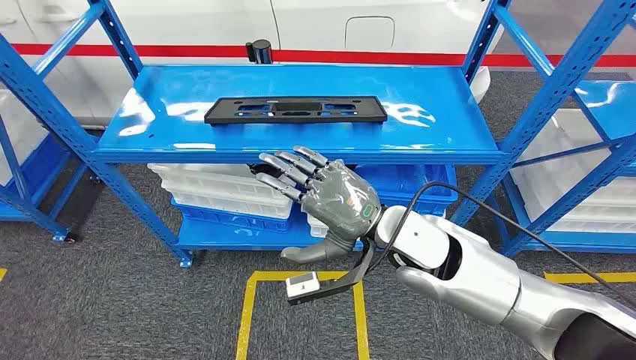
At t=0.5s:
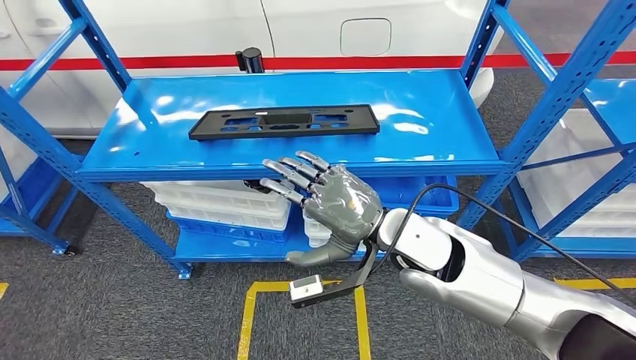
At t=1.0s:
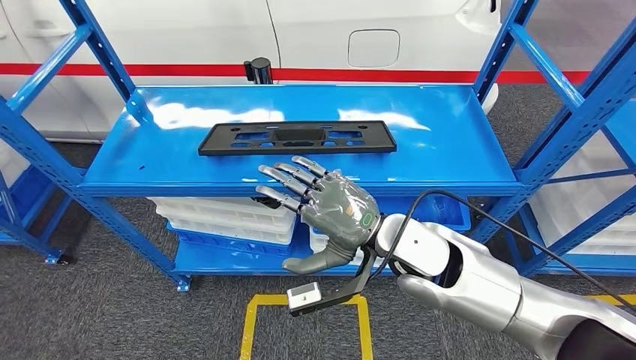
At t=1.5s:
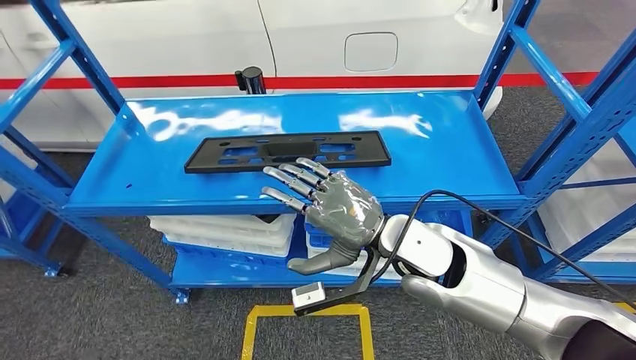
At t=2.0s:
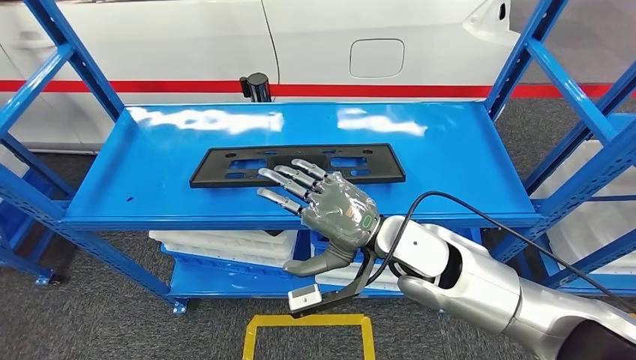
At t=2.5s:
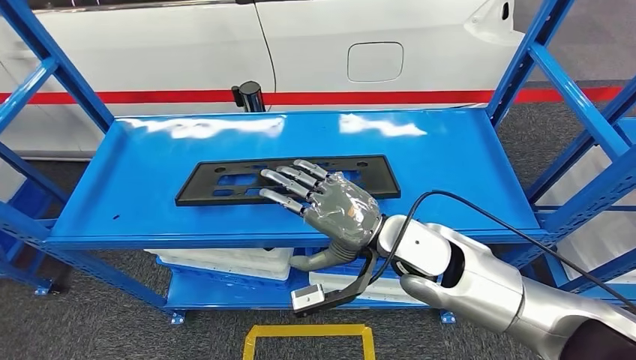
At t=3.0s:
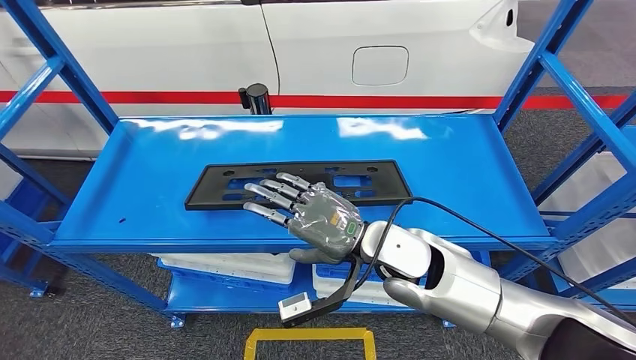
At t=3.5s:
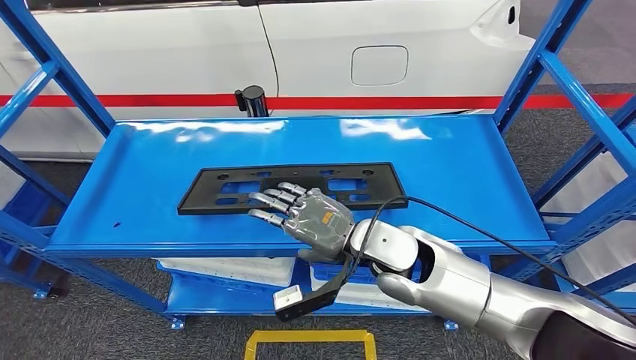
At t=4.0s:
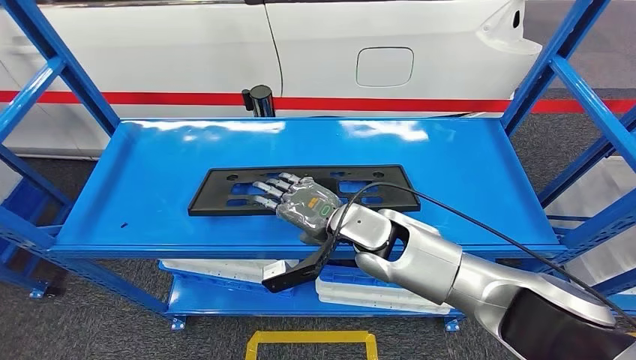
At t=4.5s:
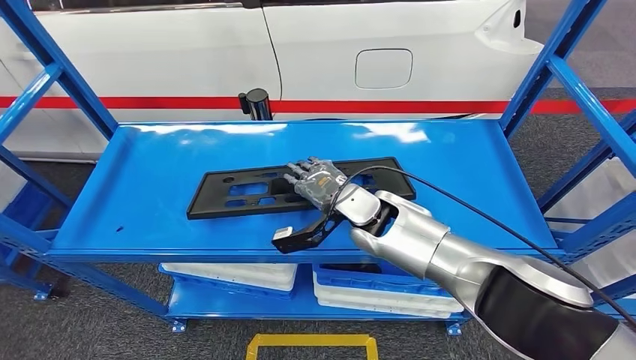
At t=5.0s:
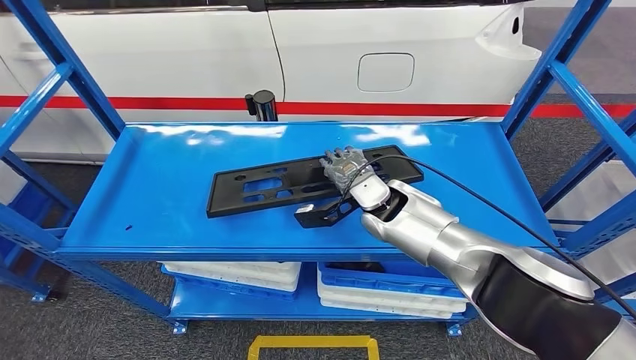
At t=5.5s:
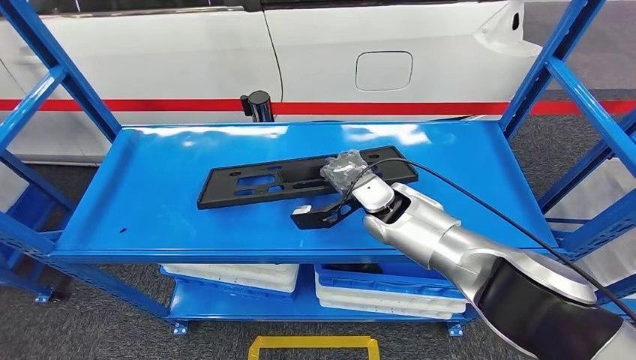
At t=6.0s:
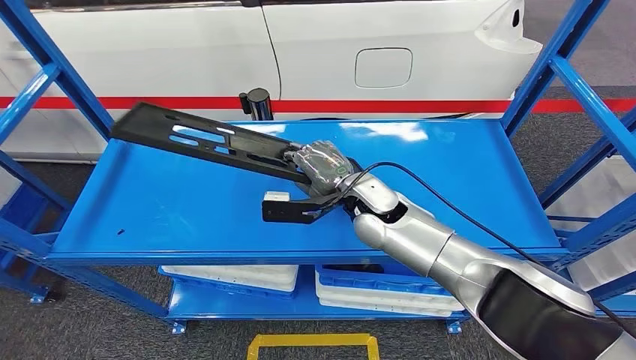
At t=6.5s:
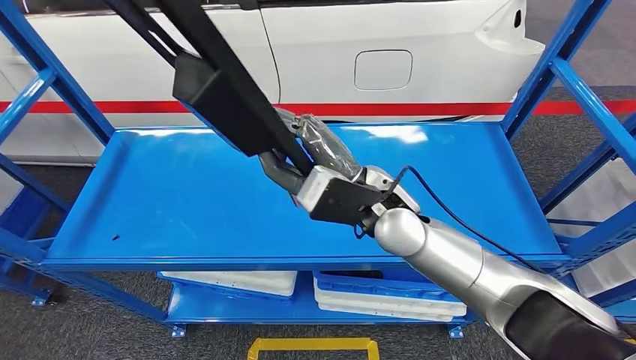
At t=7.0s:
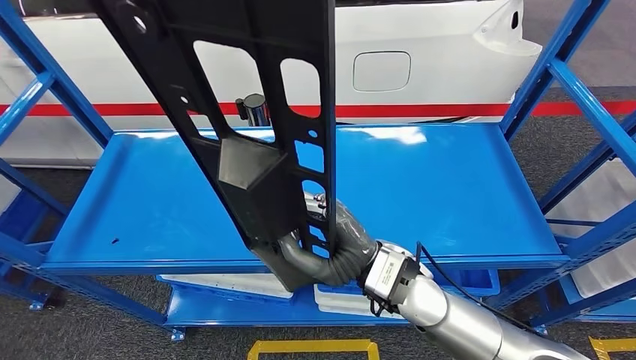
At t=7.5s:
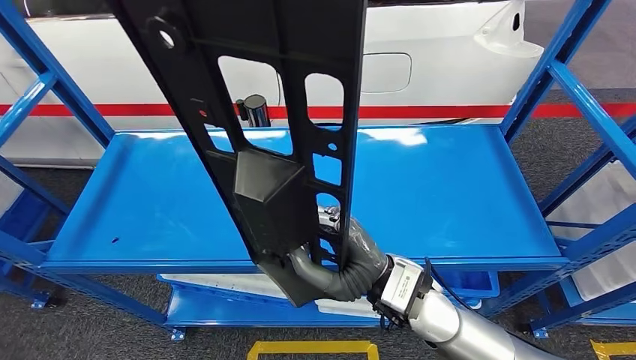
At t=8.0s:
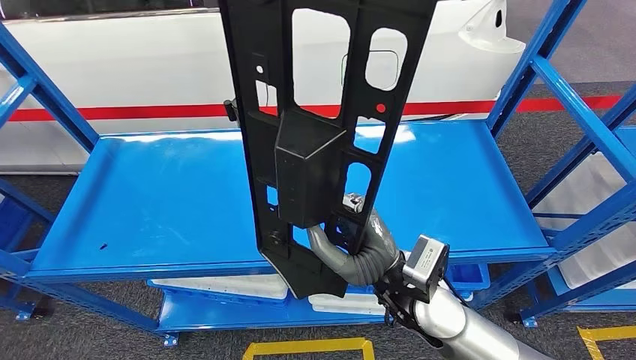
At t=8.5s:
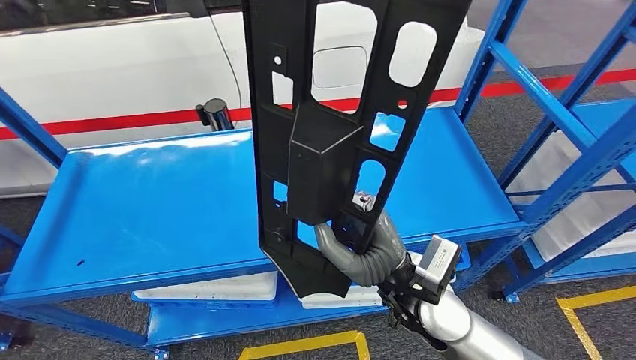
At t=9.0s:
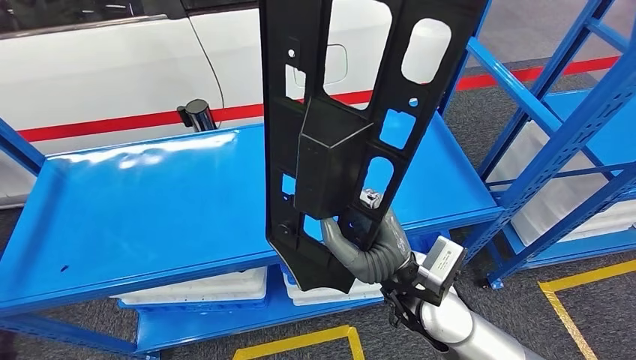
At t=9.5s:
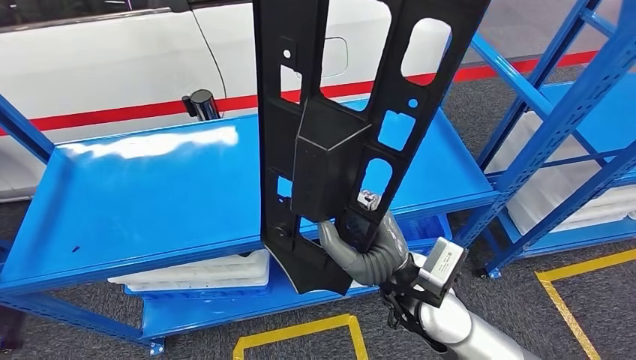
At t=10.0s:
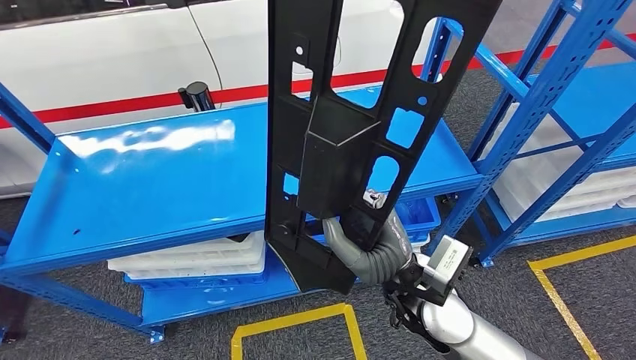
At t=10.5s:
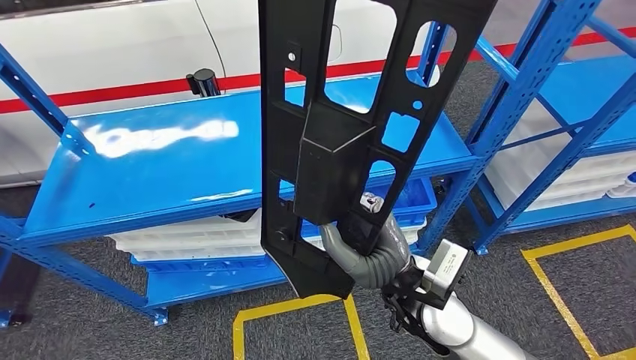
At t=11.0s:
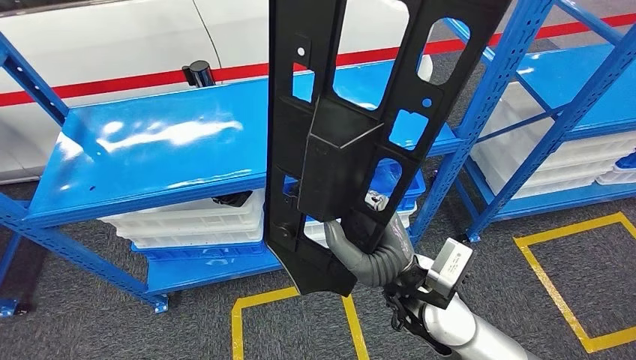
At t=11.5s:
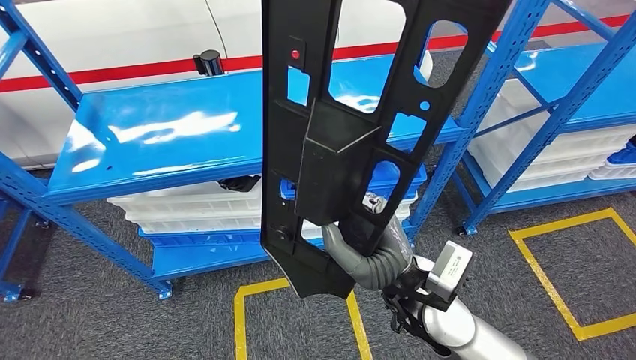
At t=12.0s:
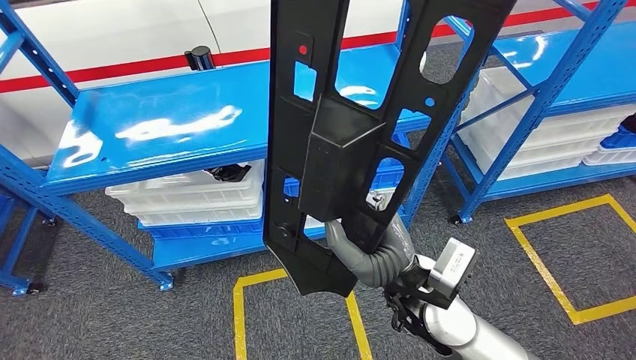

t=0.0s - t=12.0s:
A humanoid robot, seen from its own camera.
Step, t=0.0s - t=10.0s: Pick up the large material from the shelf.

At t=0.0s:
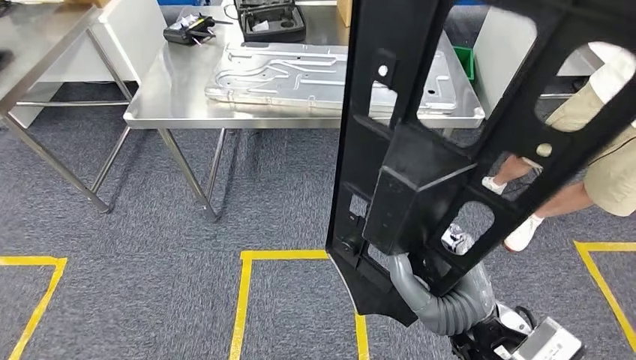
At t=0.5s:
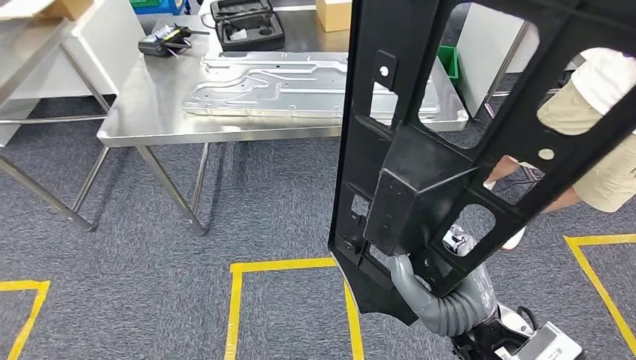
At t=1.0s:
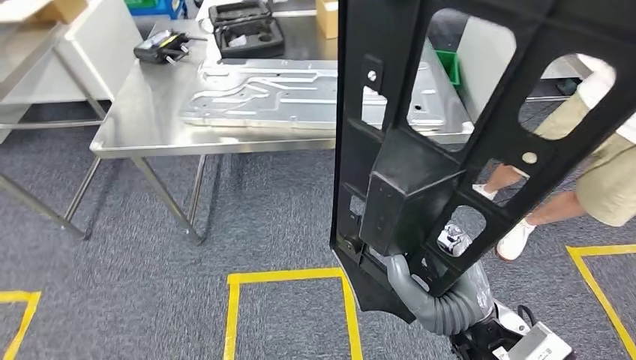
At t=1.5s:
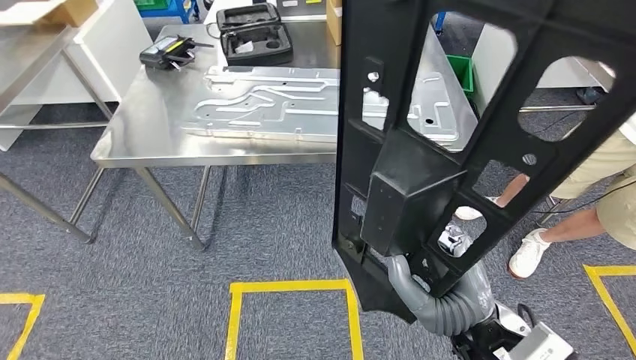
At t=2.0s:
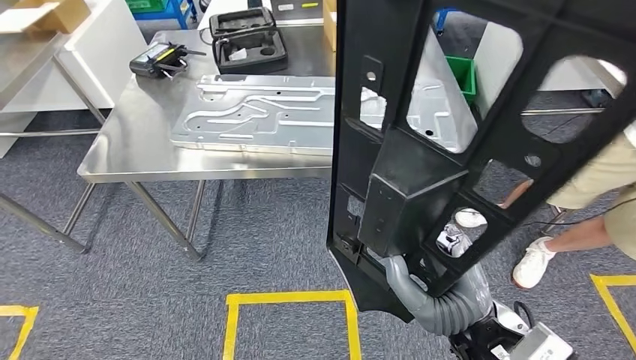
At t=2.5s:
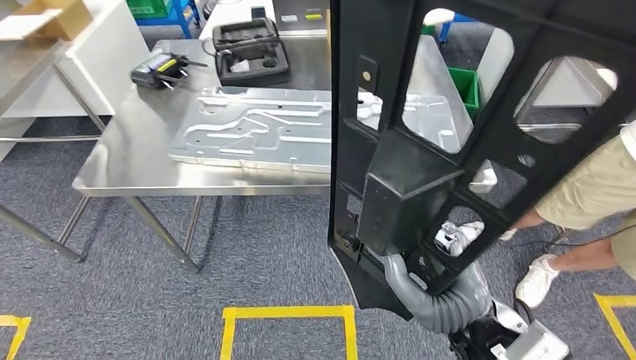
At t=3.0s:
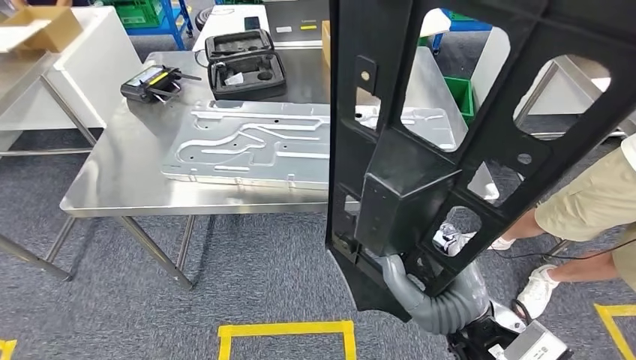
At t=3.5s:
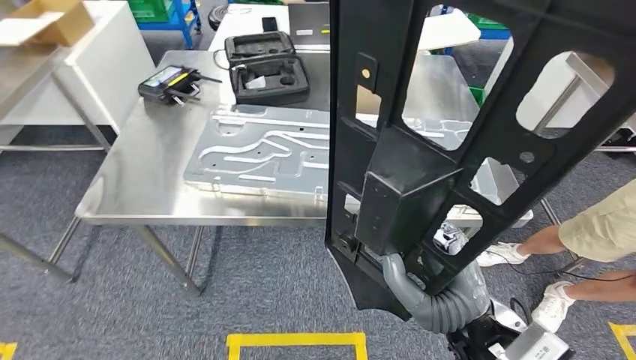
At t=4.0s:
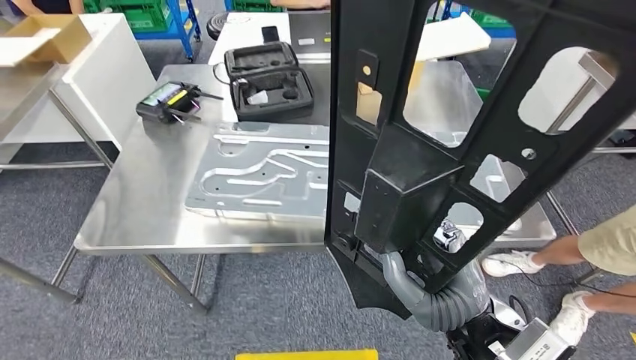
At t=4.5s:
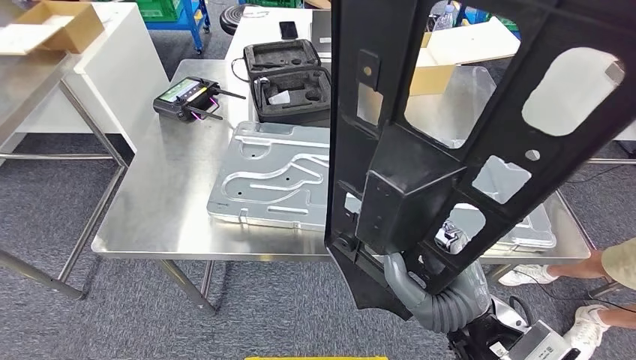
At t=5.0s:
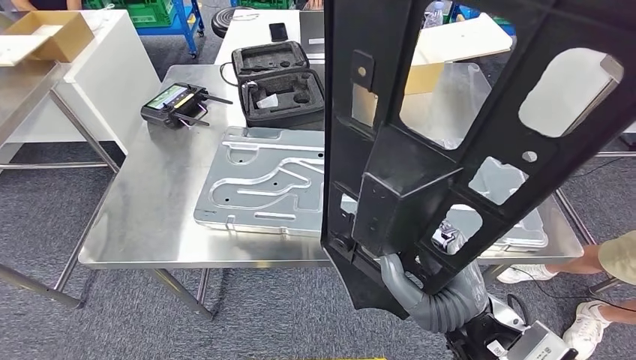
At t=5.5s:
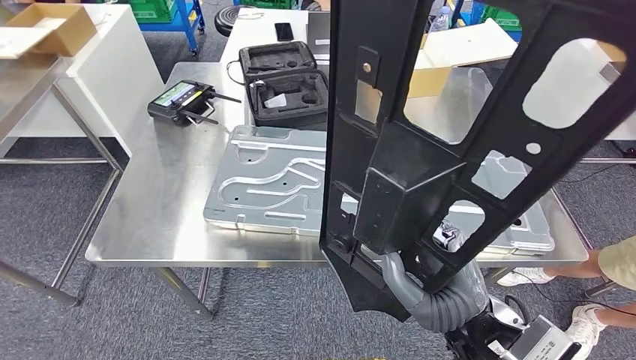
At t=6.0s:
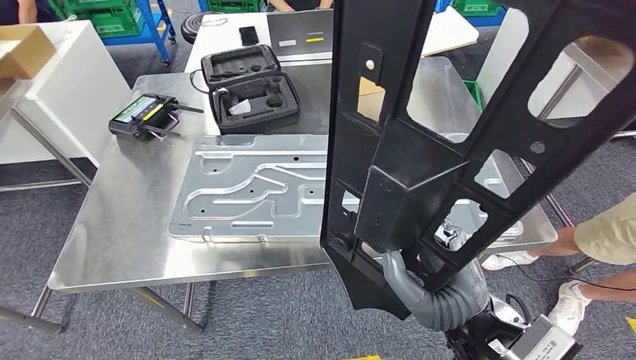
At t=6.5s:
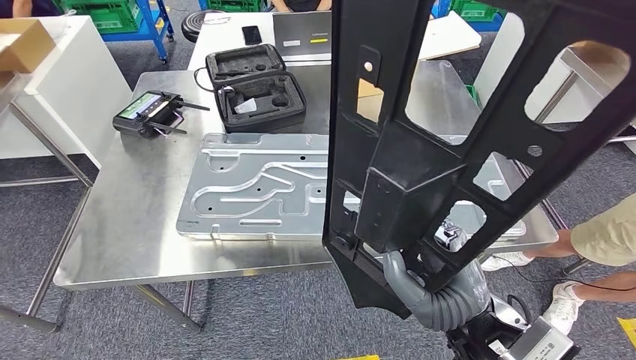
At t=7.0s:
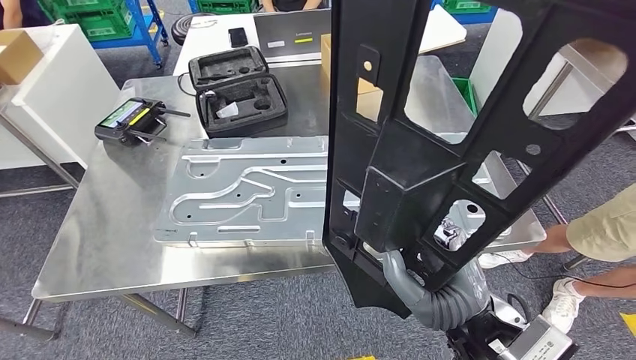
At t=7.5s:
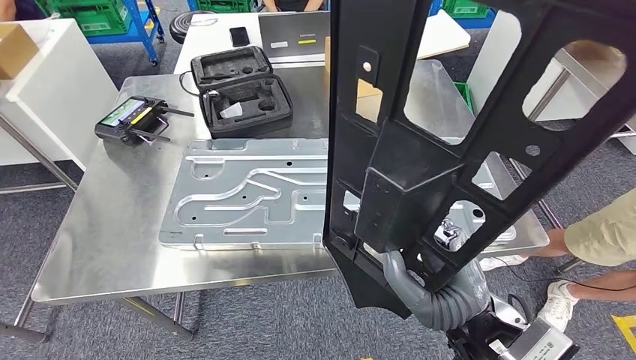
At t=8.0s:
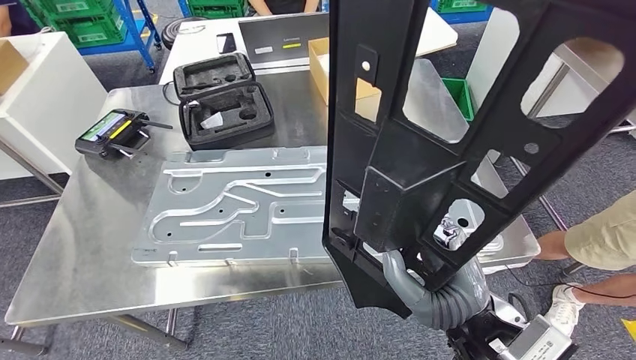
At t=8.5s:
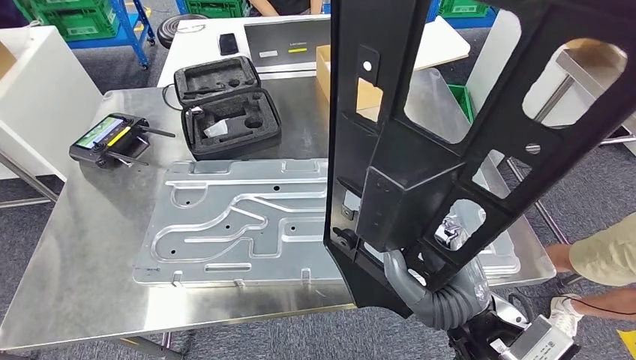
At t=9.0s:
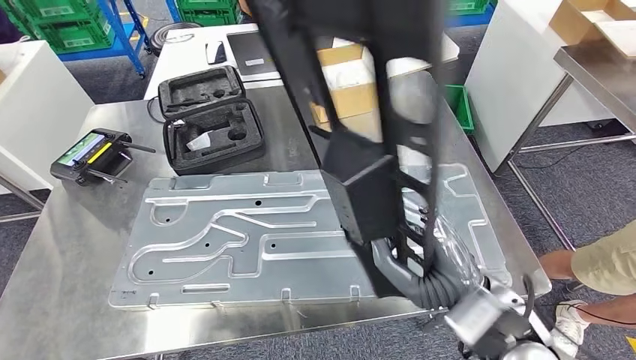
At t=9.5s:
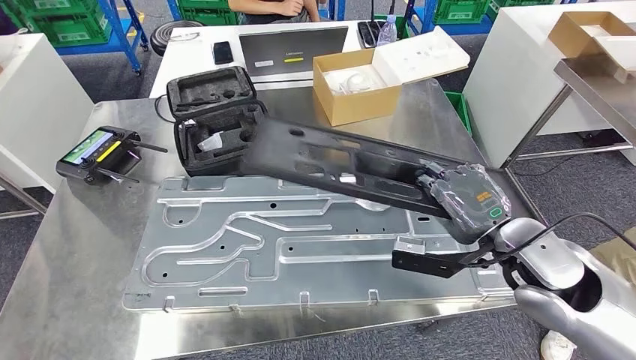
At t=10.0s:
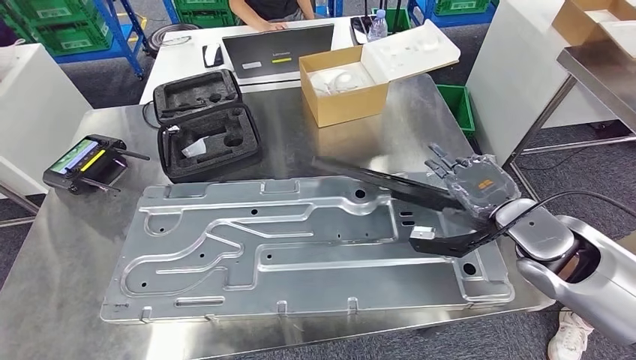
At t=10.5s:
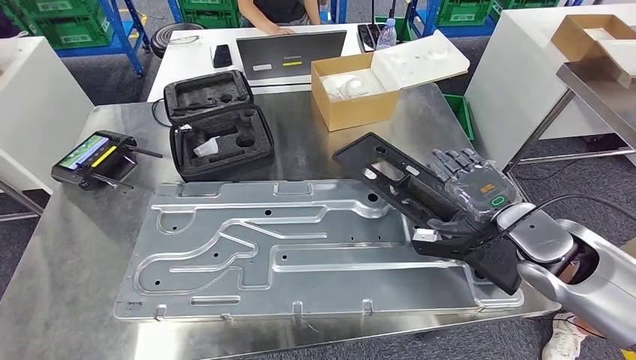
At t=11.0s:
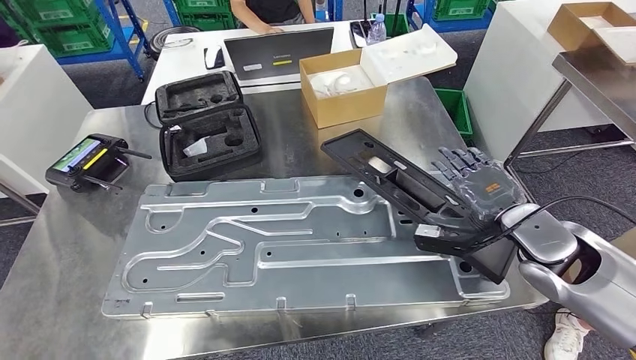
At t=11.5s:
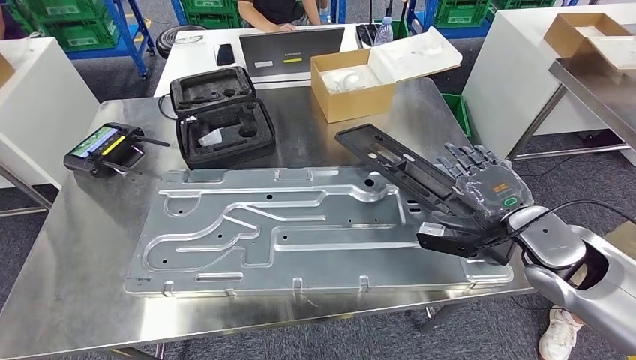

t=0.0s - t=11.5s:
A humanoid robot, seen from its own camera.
Step, t=0.0s - t=5.0s: Move the large material to the workbench.
